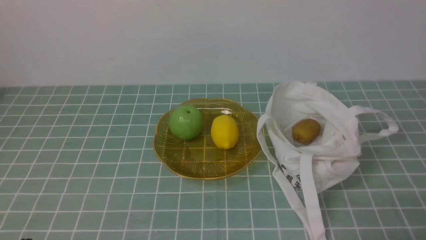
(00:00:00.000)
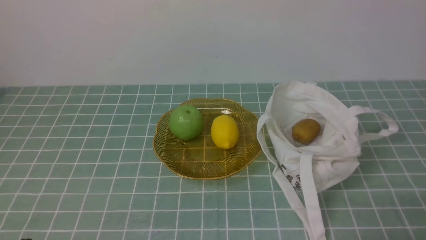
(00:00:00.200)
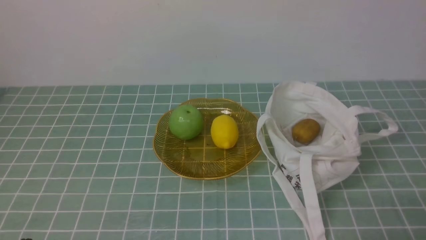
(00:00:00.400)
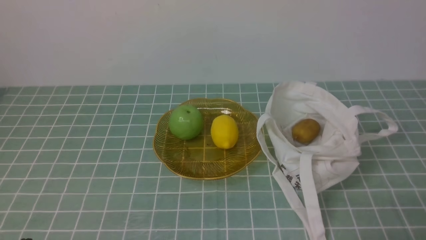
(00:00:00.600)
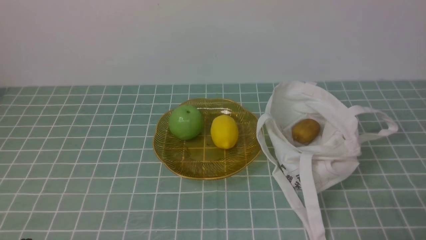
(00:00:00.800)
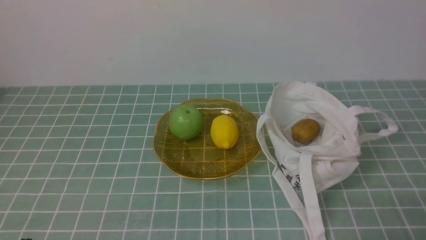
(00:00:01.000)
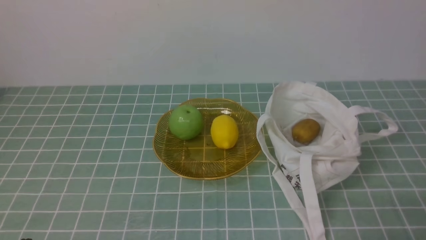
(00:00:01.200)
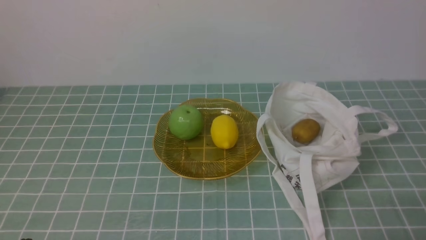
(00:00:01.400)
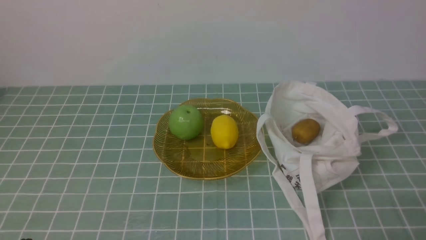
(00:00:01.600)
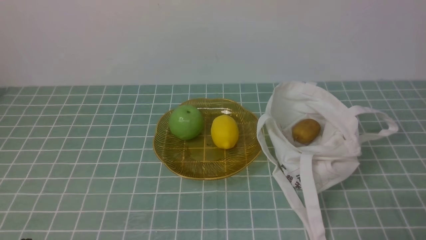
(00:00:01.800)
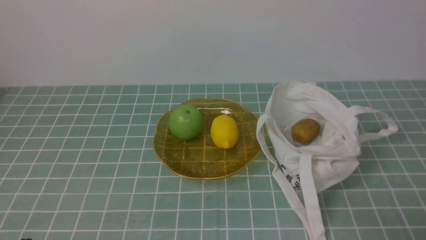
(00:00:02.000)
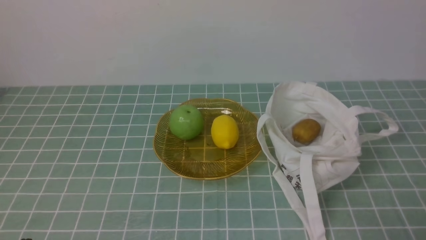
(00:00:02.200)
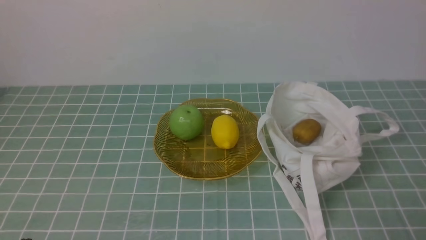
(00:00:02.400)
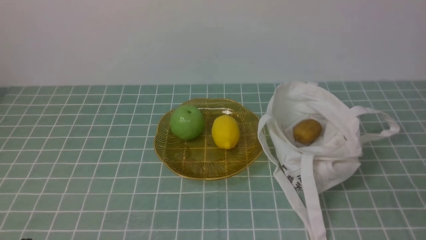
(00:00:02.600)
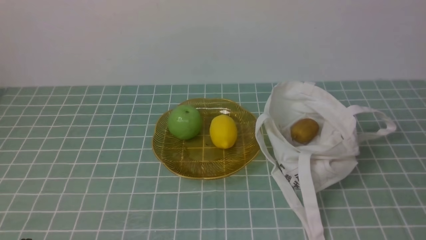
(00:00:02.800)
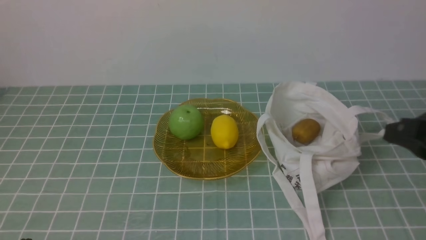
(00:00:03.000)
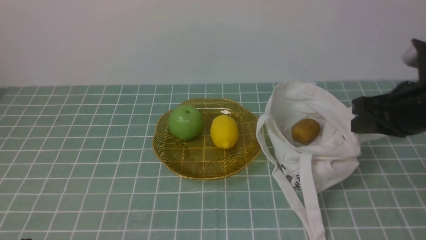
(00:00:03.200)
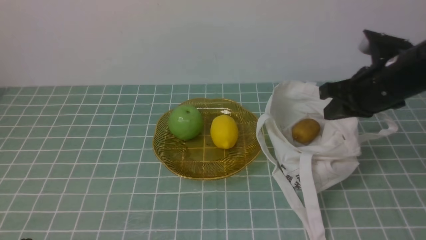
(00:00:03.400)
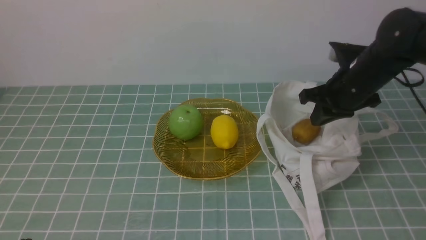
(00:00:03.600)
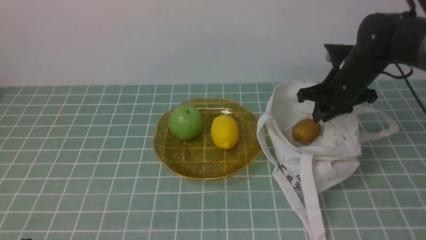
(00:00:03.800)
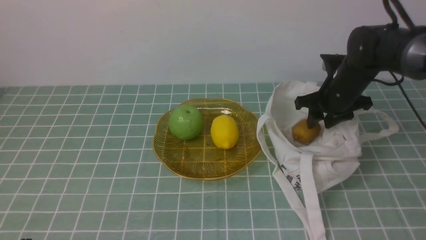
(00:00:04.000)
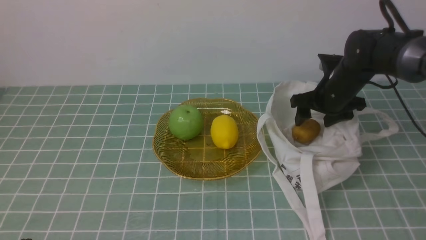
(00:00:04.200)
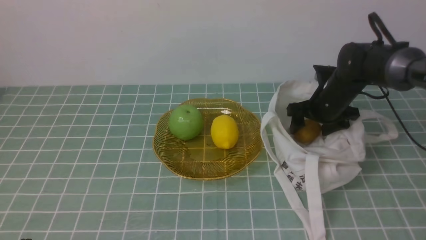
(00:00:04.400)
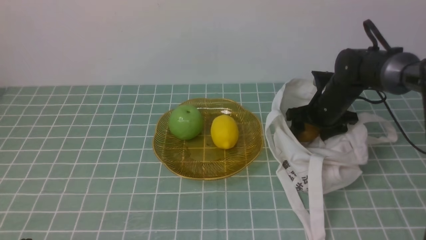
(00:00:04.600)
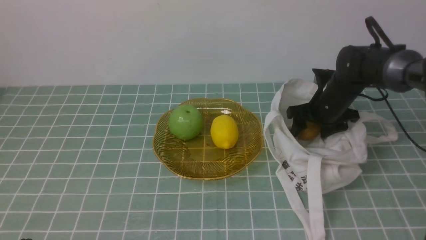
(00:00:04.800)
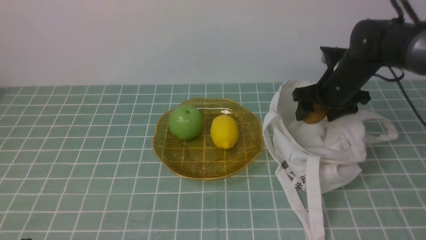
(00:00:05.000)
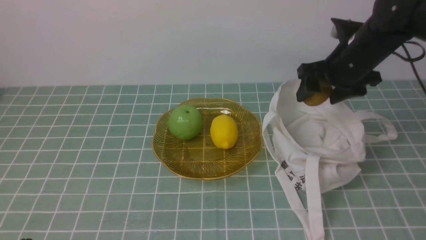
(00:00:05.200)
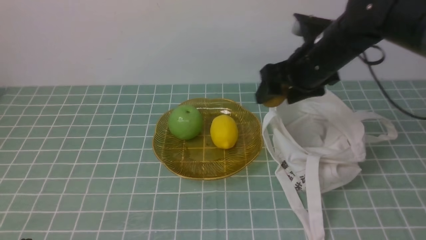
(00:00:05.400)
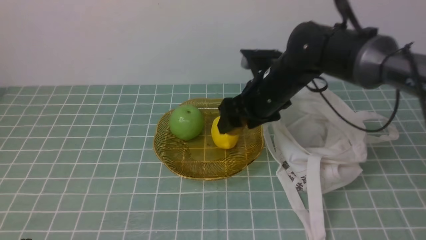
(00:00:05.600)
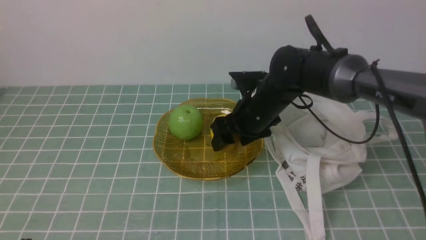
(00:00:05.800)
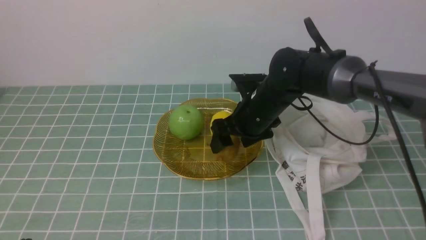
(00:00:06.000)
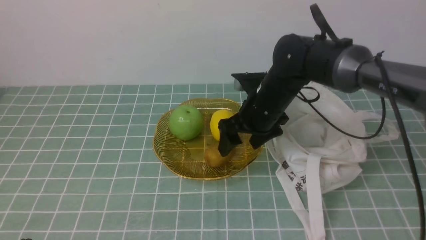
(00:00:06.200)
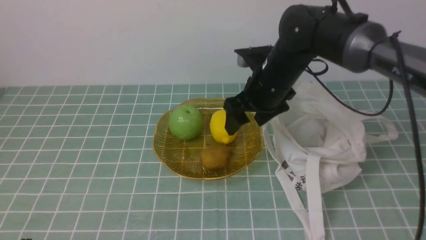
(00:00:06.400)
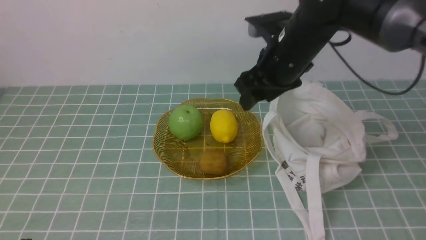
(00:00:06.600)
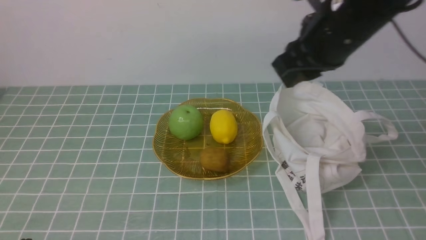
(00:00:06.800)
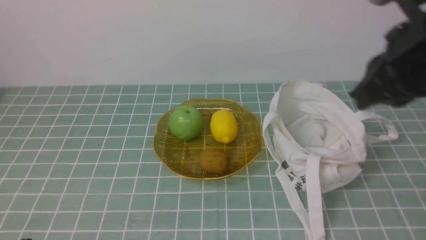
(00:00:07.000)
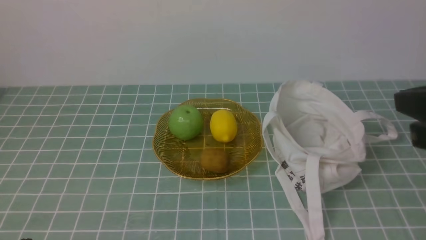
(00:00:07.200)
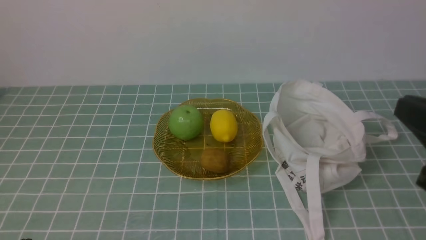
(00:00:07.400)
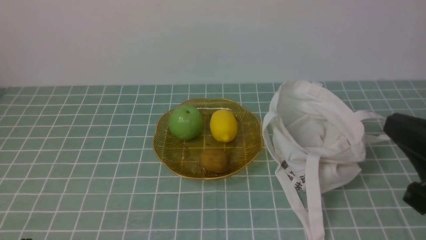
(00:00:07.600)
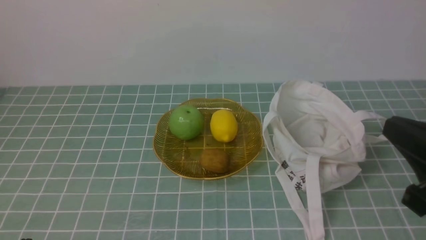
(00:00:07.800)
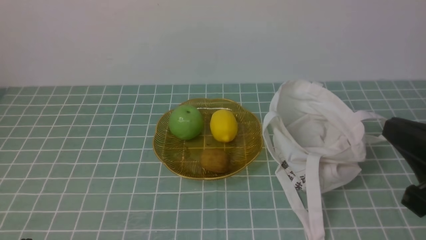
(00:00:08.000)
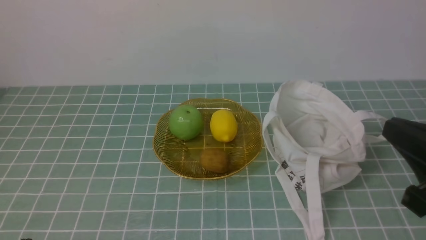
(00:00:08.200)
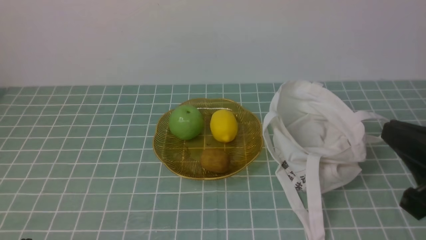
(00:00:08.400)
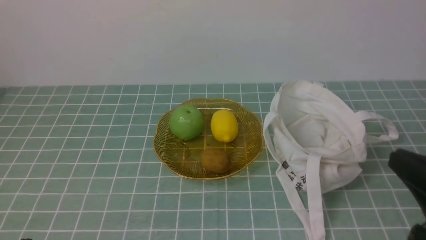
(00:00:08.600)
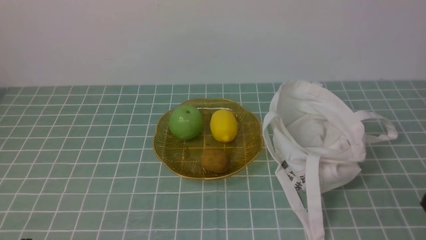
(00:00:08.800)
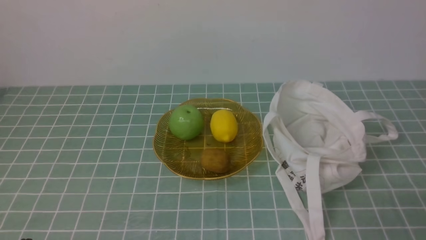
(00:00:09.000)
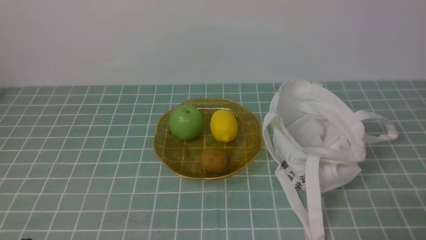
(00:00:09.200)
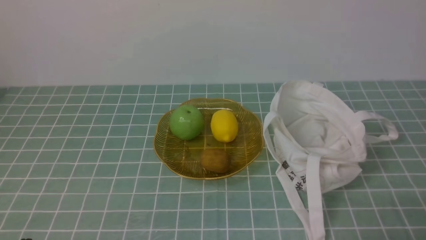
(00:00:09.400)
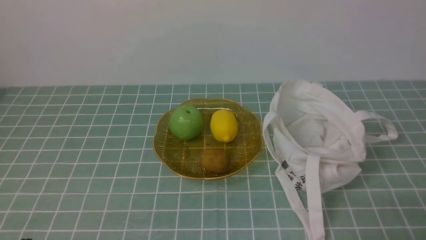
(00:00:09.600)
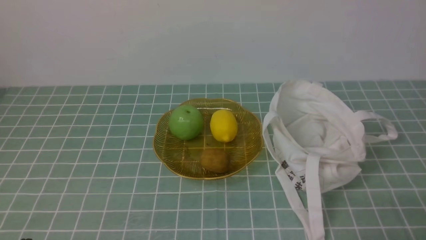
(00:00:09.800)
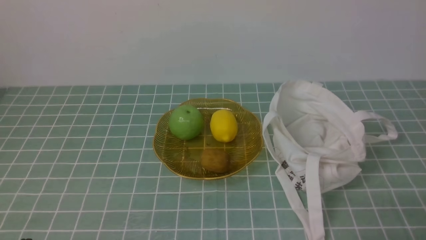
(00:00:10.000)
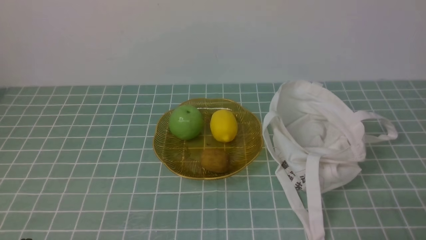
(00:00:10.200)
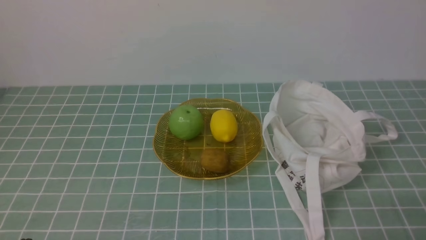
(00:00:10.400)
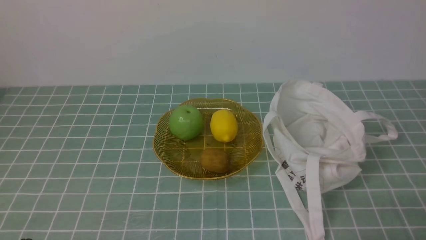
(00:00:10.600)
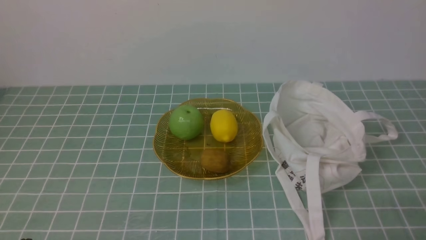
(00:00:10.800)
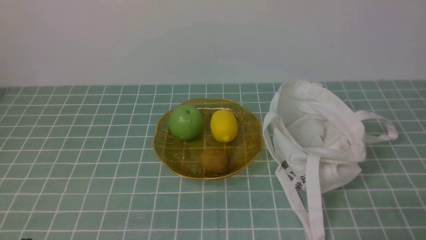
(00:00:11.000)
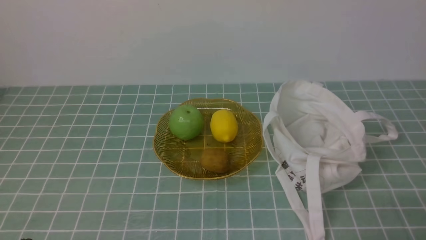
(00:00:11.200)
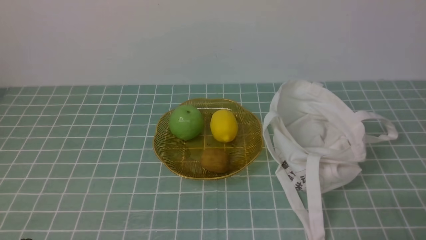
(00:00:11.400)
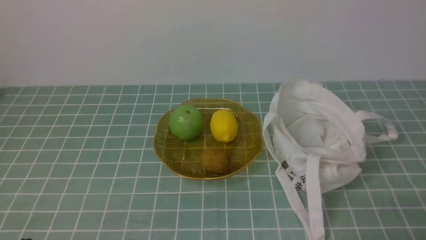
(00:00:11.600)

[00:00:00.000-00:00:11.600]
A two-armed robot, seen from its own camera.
Step, 00:00:00.000 to 00:00:05.000: use the right arm to grab a kiwi from the bag.
Step, 00:00:05.200 to 00:00:06.200: use the right arm to put the kiwi into the empty plate on the left.
00:00:00.000 to 00:00:01.400: Both grippers stay about where they are.
00:00:01.400 to 00:00:02.800: The right gripper goes some 15 cm upward.
00:00:02.800 to 00:00:04.400: The right gripper travels forward and downward by some 40 cm, and opens.
00:00:04.400 to 00:00:05.800: The right gripper moves to the left, some 15 cm.
00:00:05.800 to 00:00:07.200: The right gripper moves backward, upward and to the right, some 35 cm, and closes its fingers.
00:00:07.200 to 00:00:08.800: The right gripper is displaced downward and backward by some 15 cm.
00:00:10.200 to 00:00:11.600: The two grippers keep their place.
